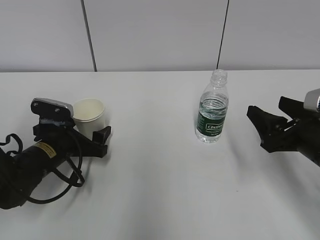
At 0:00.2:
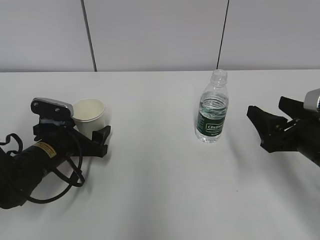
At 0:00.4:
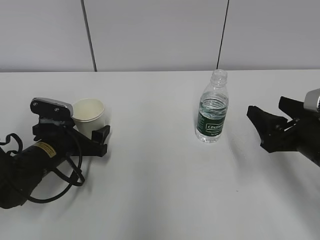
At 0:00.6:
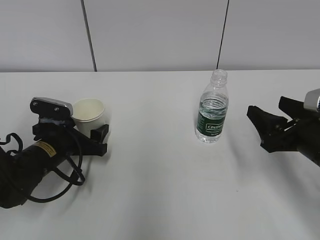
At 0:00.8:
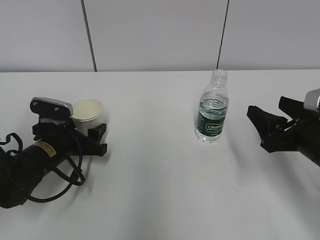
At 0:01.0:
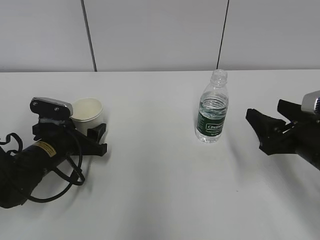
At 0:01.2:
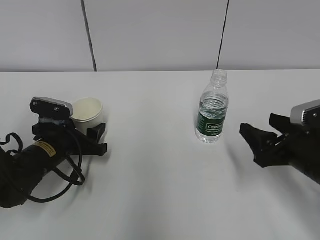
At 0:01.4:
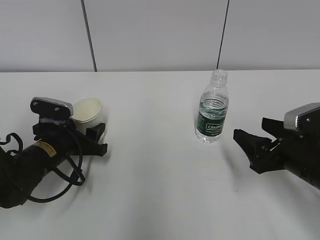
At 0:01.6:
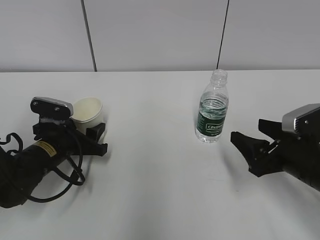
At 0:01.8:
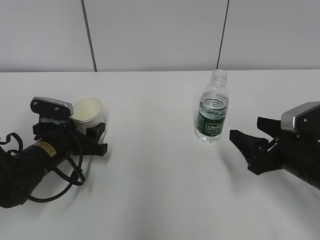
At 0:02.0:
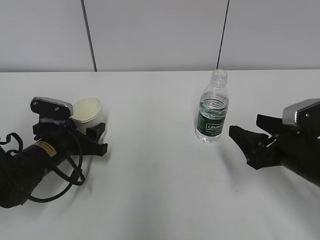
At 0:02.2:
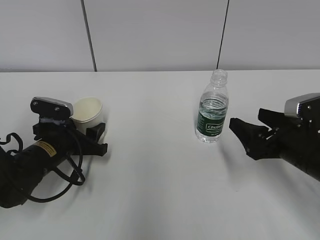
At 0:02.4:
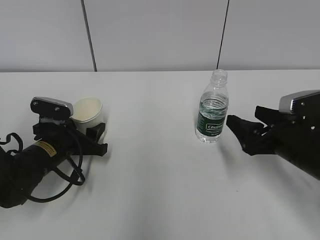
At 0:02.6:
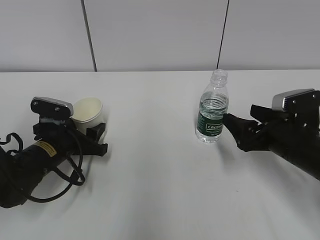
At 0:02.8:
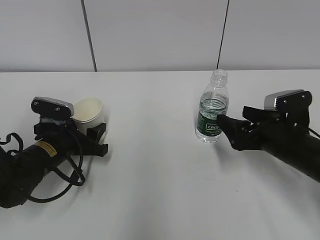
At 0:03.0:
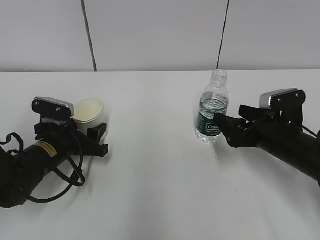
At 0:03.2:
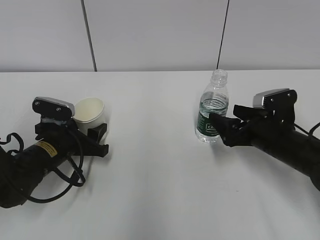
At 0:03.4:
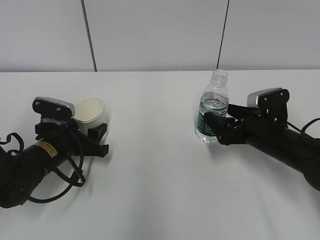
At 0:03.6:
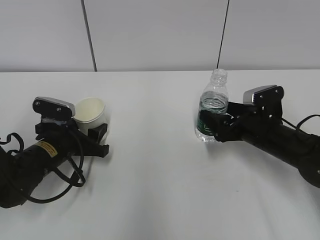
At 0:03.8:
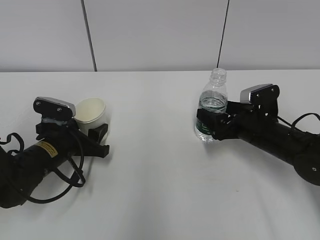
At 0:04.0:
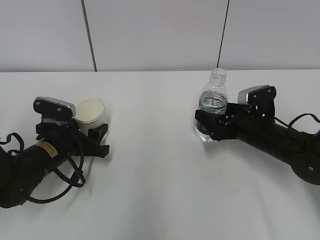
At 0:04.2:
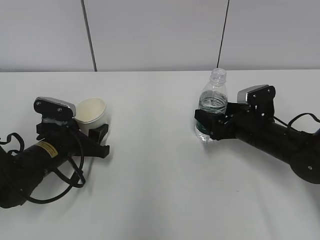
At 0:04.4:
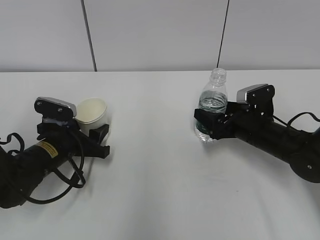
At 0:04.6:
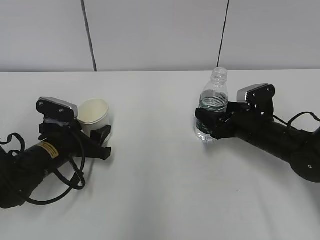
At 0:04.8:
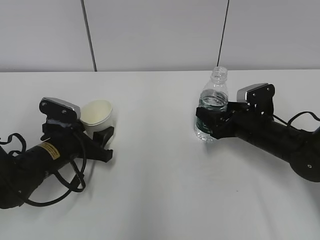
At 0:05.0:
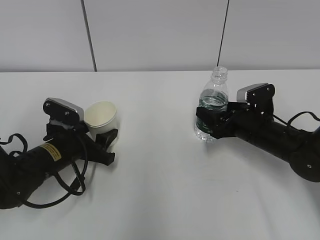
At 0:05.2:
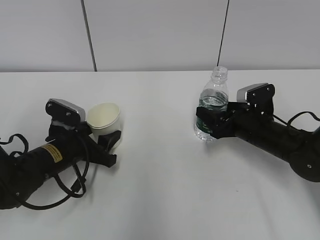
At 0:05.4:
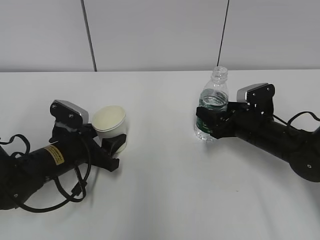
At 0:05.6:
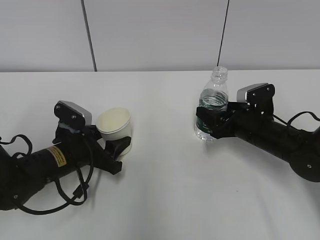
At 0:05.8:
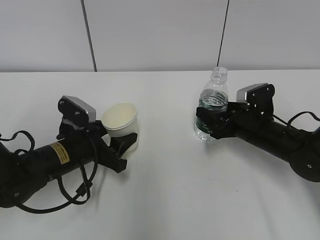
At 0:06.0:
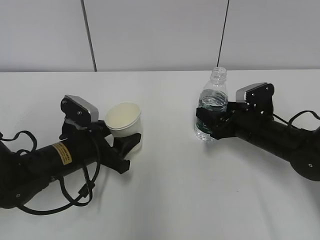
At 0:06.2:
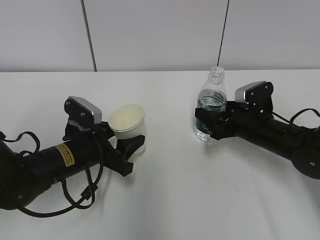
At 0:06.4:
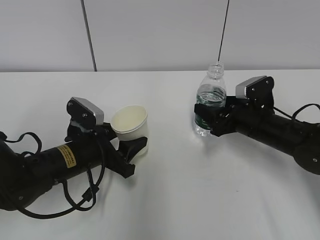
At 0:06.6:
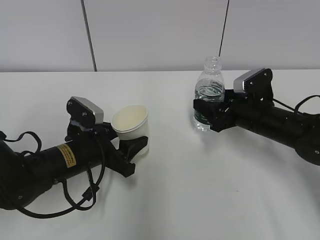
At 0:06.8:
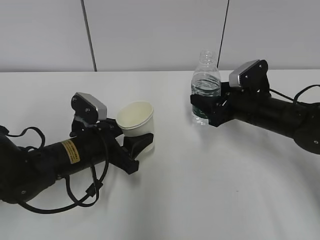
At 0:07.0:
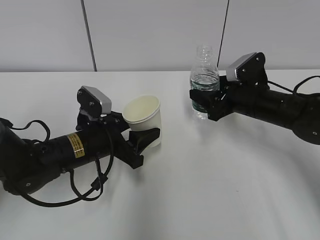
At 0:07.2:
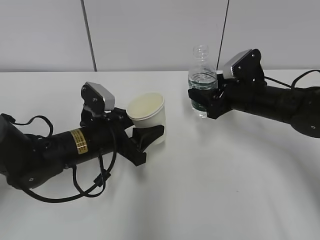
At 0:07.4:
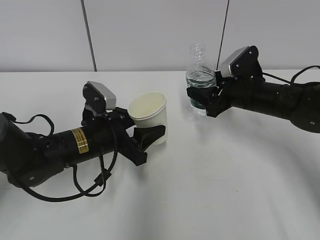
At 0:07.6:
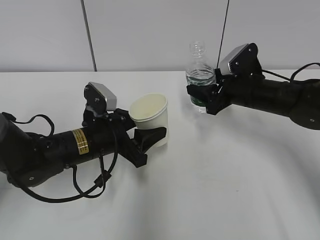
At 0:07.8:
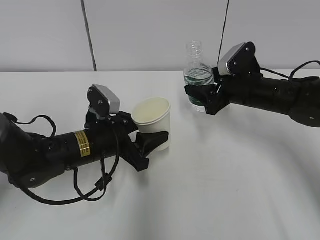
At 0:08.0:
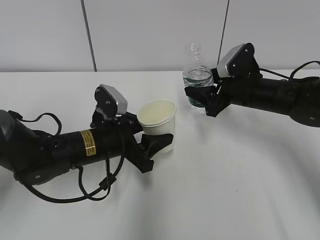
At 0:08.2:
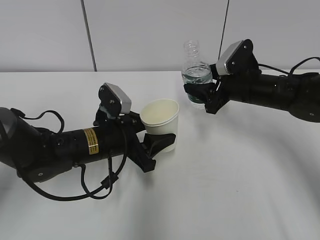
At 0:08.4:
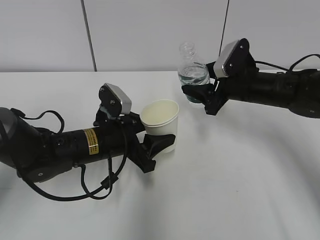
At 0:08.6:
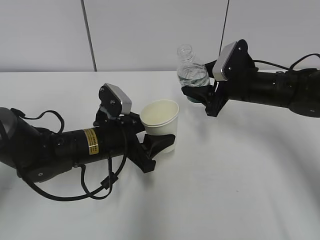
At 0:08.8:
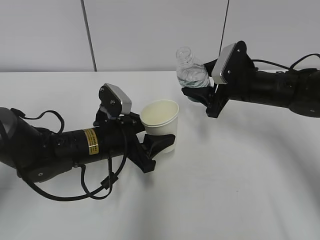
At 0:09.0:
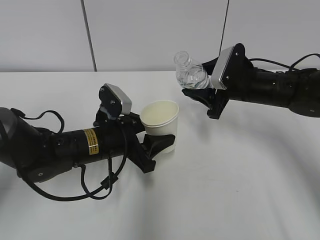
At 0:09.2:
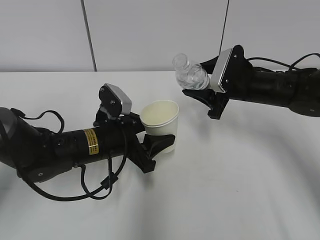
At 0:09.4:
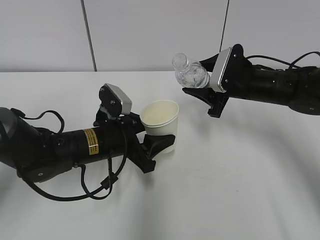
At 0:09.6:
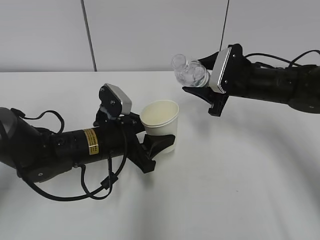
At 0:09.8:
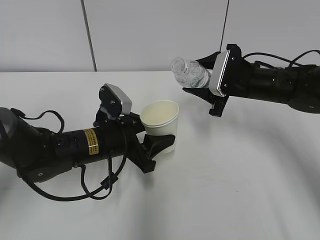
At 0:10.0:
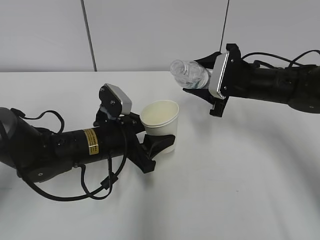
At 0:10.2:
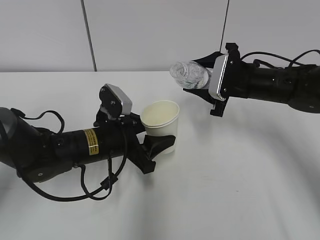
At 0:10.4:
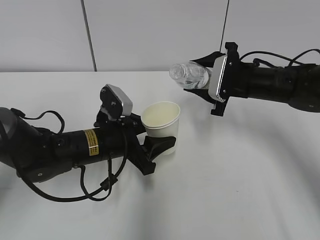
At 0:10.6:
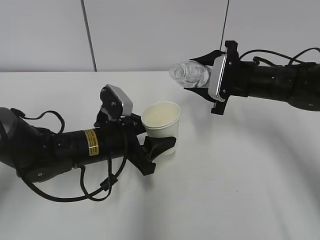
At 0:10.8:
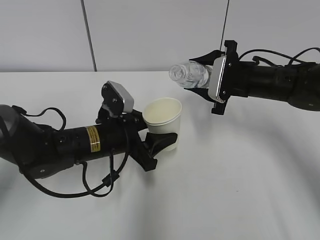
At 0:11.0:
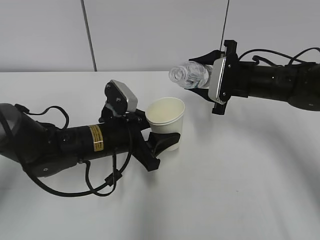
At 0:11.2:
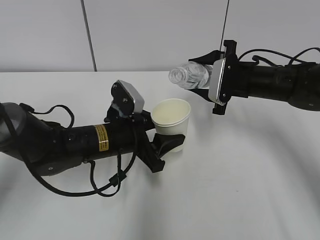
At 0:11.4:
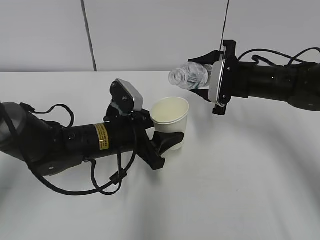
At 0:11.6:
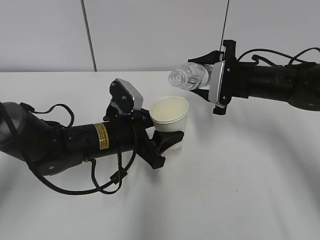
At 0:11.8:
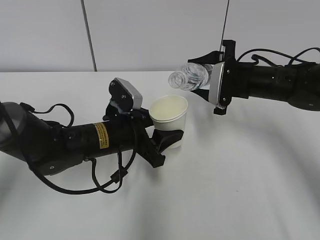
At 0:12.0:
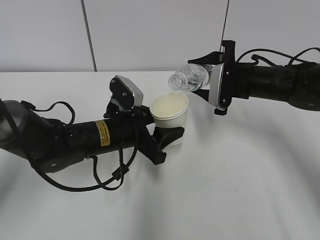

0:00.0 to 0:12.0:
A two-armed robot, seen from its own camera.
Step, 0:03.4 to 0:03.6: Grab the water bottle with the right hand.
Step, 0:03.8 to 0:10.6: Lift the paper cup with the left hand.
0:00.0 to 0:01.6: The left gripper closes.
0:01.6 to 0:03.0: The right gripper is displaced forward by approximately 5 cm.
0:03.0 to 0:04.4: The right gripper heads forward, covering roughly 5 cm.
0:04.4 to 0:06.0: The right gripper closes up.
0:06.0 to 0:07.6: The right gripper shifts some 5 cm upward.
0:10.4 to 0:12.0: The grippers make only small movements.

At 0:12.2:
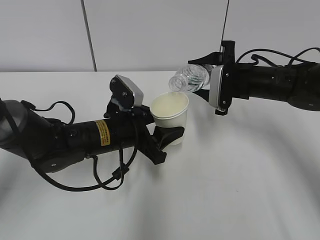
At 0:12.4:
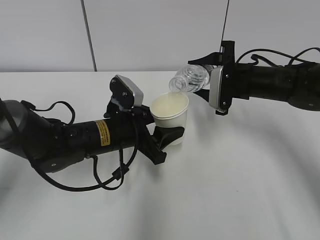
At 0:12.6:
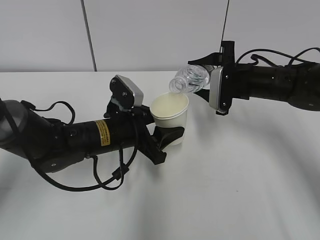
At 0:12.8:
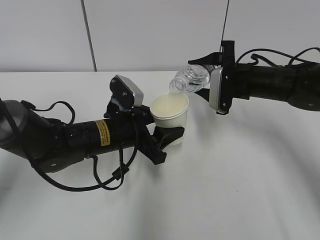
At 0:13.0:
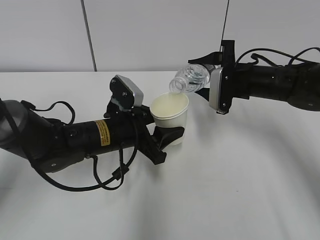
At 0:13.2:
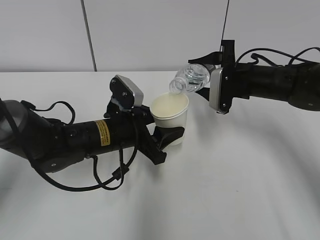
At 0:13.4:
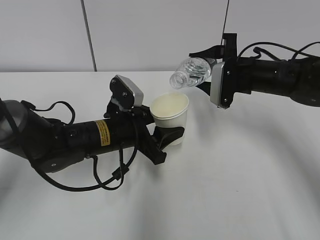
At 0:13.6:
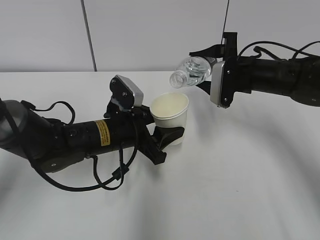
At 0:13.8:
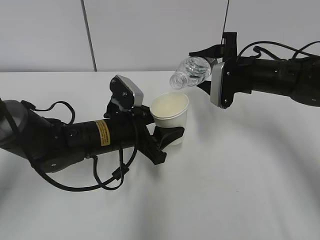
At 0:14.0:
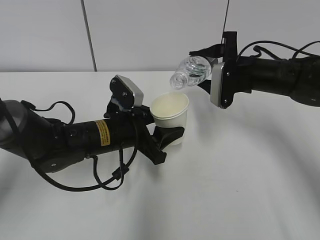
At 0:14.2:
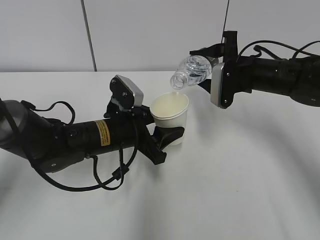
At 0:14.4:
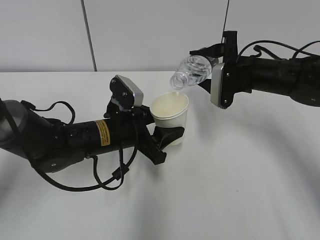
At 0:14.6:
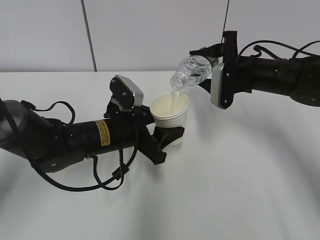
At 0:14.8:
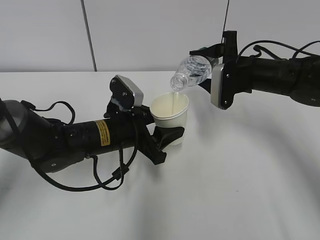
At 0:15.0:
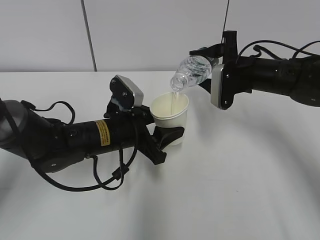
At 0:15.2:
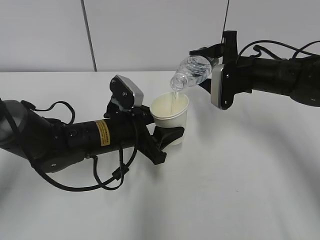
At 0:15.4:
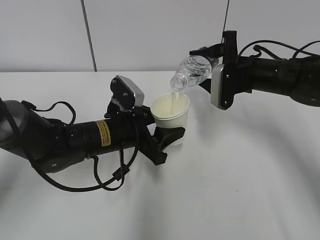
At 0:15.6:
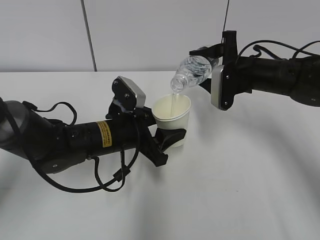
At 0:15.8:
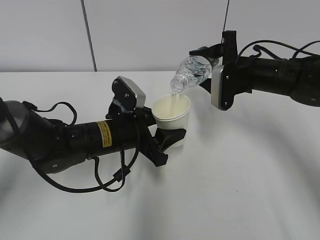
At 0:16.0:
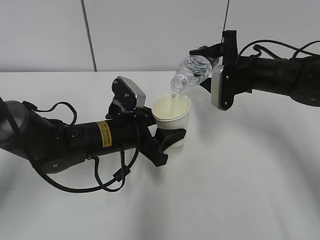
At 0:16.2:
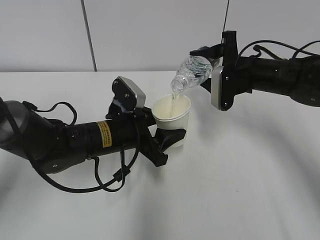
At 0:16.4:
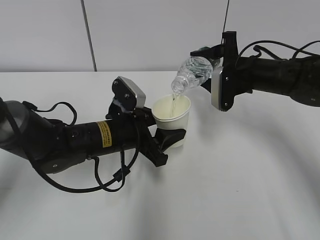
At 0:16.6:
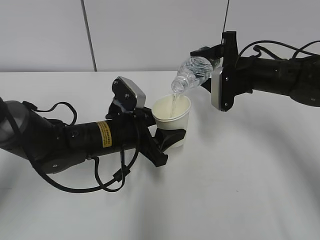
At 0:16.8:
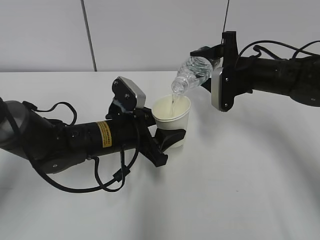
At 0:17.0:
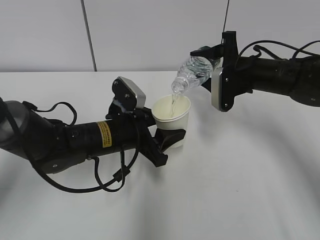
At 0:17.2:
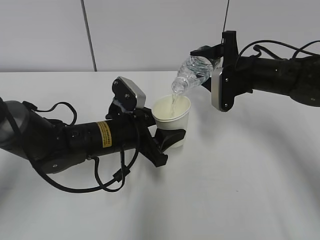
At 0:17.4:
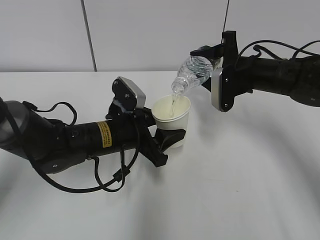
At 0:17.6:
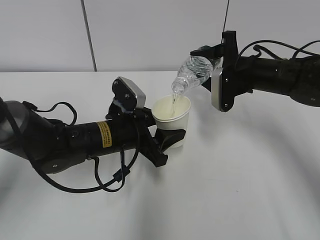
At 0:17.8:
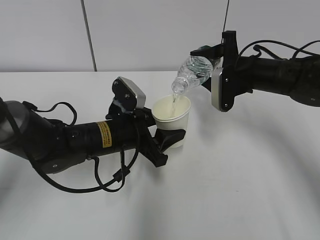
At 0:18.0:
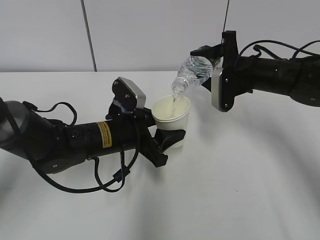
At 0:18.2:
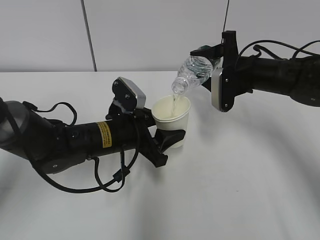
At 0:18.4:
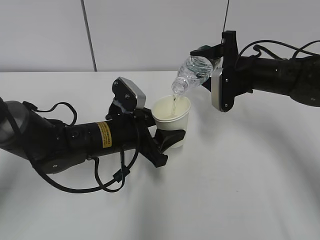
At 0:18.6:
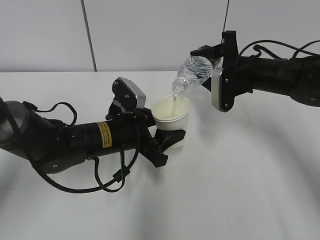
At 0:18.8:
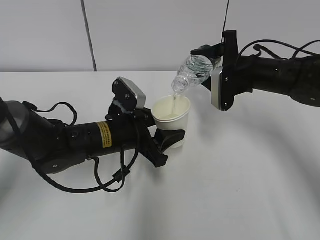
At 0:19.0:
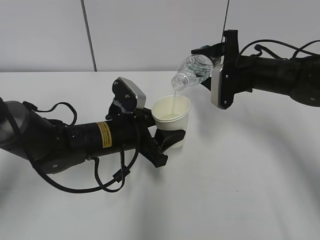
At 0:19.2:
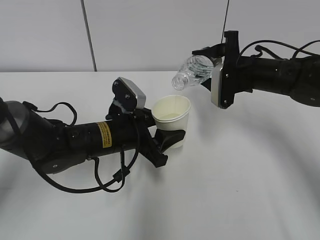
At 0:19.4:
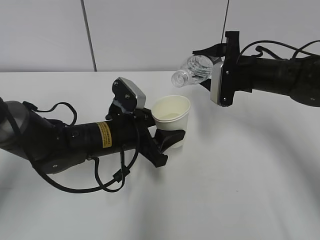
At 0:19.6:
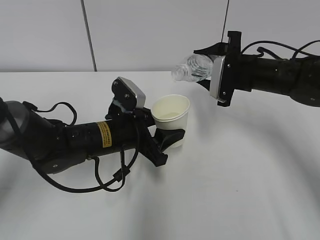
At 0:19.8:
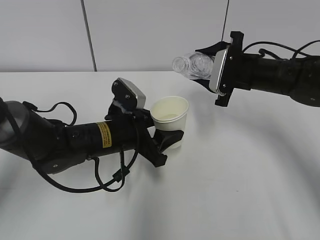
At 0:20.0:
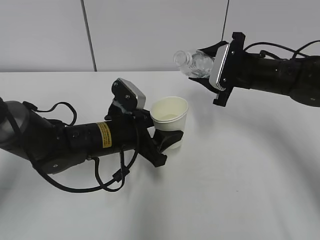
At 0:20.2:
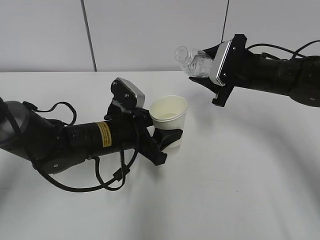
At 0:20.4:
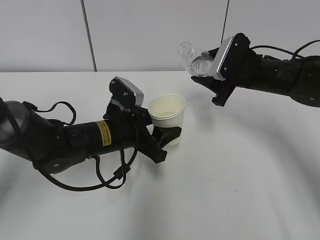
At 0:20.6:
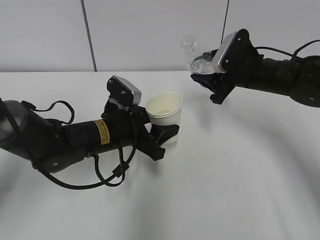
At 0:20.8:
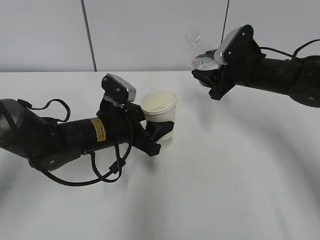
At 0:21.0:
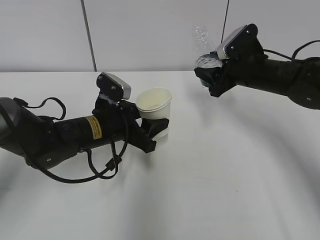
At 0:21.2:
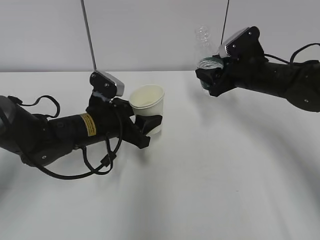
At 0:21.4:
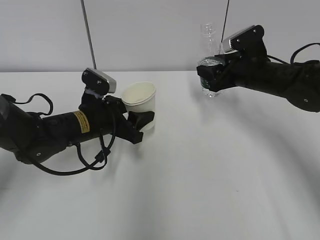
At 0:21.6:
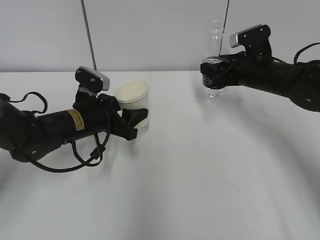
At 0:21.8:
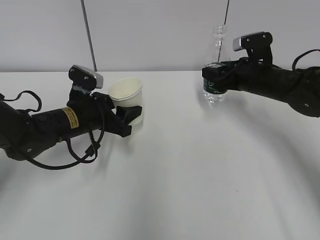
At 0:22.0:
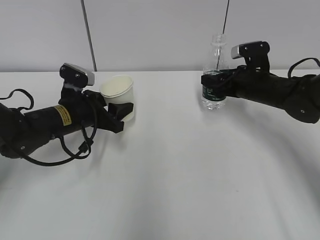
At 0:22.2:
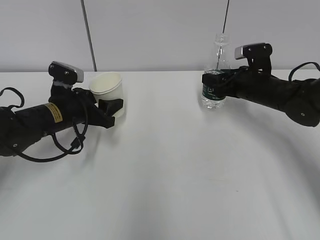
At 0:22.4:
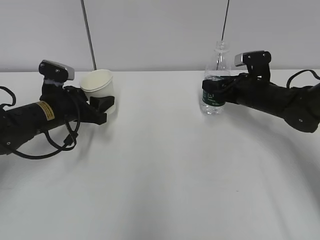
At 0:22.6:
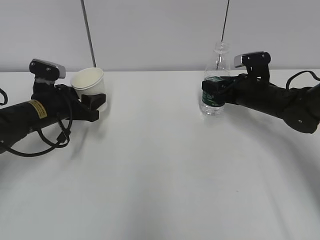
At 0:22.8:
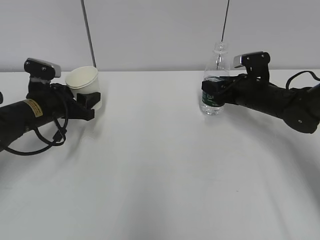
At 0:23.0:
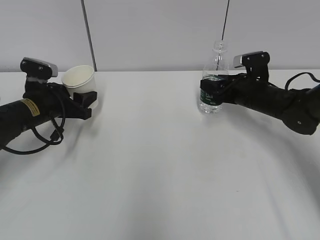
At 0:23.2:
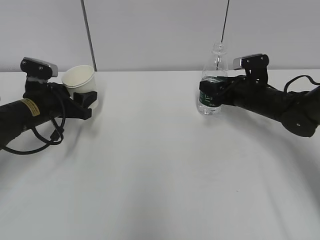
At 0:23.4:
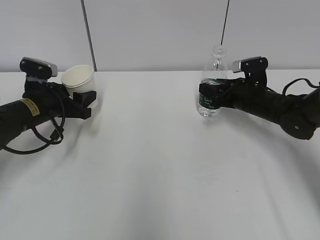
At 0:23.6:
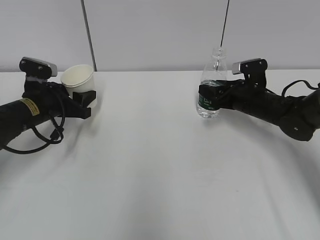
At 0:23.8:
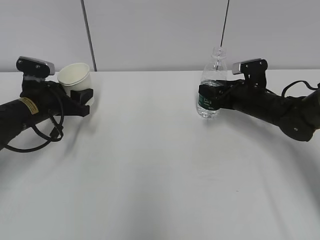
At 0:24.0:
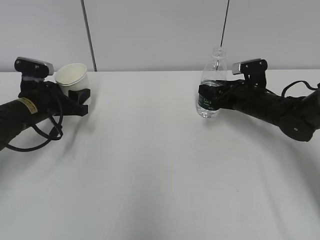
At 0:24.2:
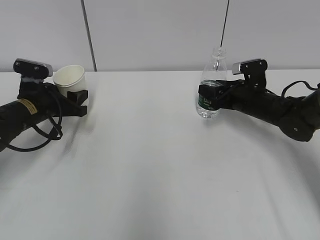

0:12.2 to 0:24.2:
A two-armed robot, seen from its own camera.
Step, 0:12.2 to 0:14.6: Pour water with the right hand.
Step, 0:14.8 to 0:16.6: Collect water with the right hand.
Step, 0:16.8 to 0:22.2: Place the water bottle with the right hand.
Step, 0:22.4 to 0:24.0: Place the paper cup with the left hand.
0:12.2 to 0:13.8: The grippers make only small movements.
0:13.8 to 0:15.2: Both grippers stay about where they are.
0:15.2 to 0:16.6: Both grippers stay about where they are.
0:16.6 to 0:18.2: Both grippers stay put.
0:21.2 to 0:22.6: The right gripper is displaced downward by approximately 5 cm. The left gripper heads to the left, covering some 10 cm.
0:22.6 to 0:24.2: The grippers move only a little.
